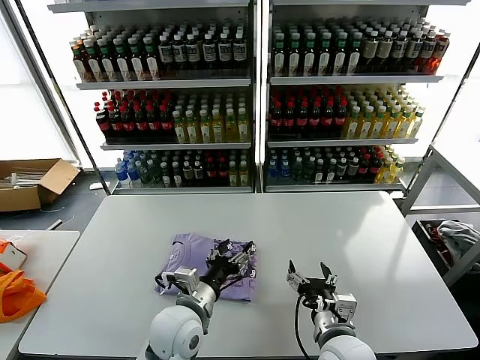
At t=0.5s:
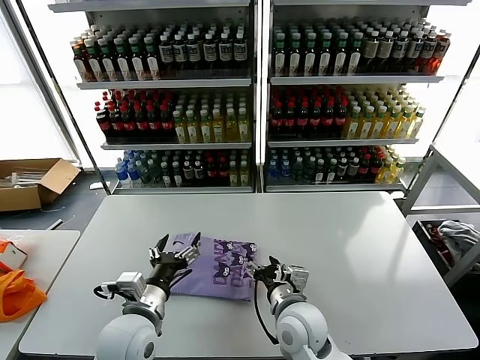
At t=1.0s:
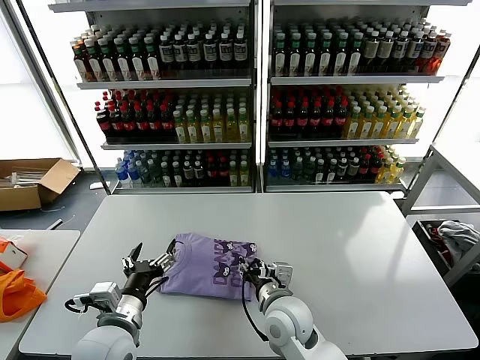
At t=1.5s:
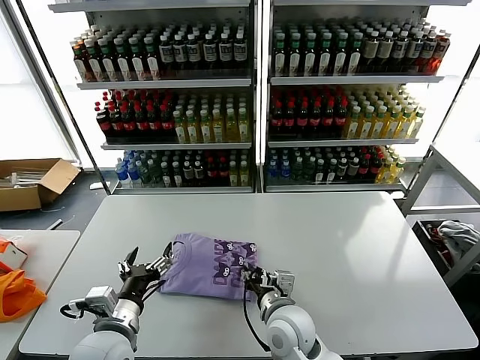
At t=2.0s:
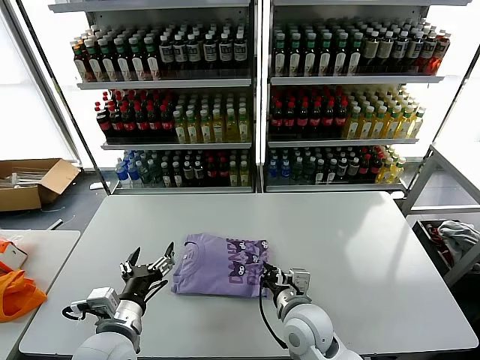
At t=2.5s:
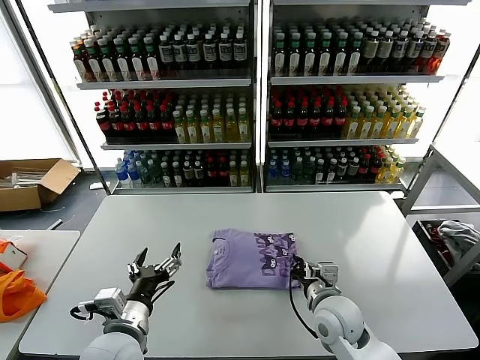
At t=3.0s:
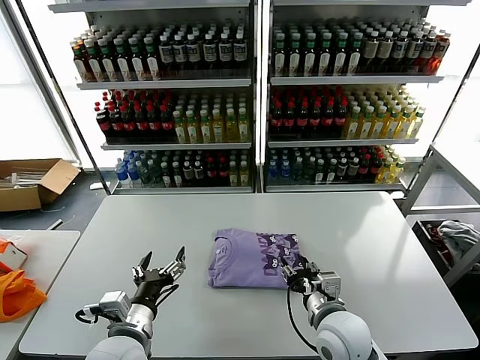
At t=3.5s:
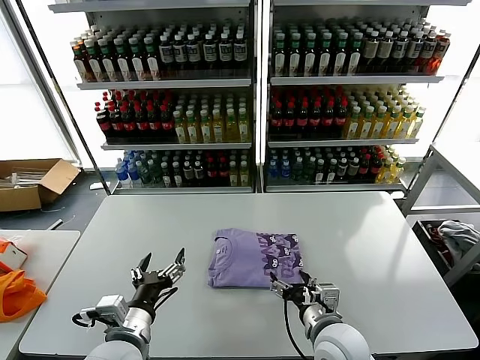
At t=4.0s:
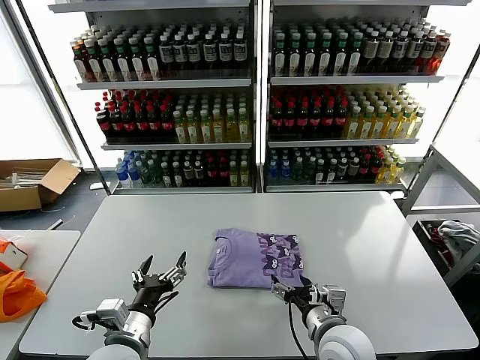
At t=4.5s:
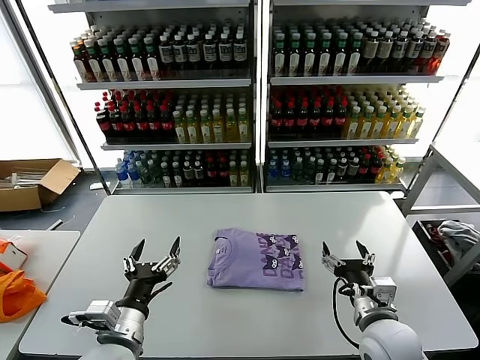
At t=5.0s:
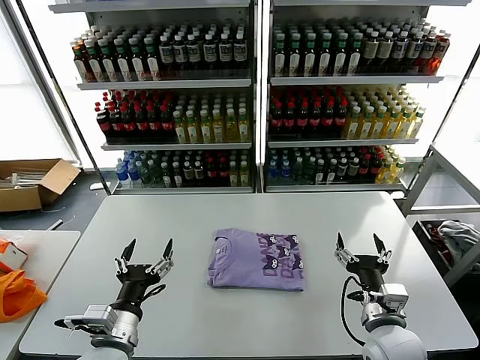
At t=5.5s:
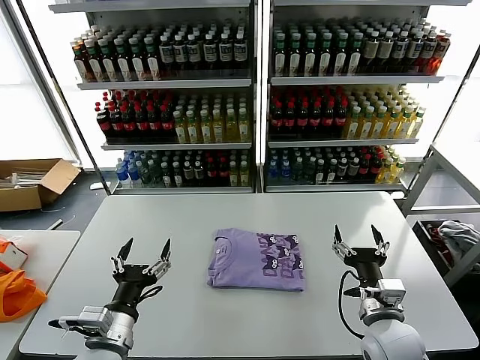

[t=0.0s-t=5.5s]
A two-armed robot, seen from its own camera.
Task of the whole recording: fold and organize the clothes.
Step, t=0.0s to t=4.0s: Drag the clothes to the center of the table.
t=0.0s to t=2.0s: The left gripper goes approximately 10 cm to the left and backward, while the right gripper heads forward and to the left, covering roughly 10 cm, and closes its fingers.
t=2.0s to t=3.5s: The right gripper moves to the right, about 5 cm, and opens its fingers.
t=3.5s to t=5.5s: The right gripper is displaced to the right by some 10 cm.
